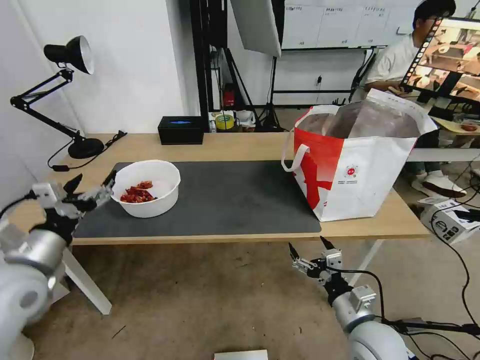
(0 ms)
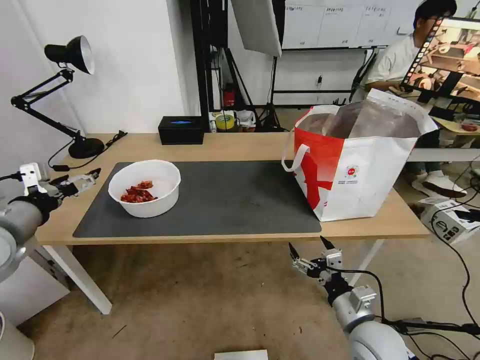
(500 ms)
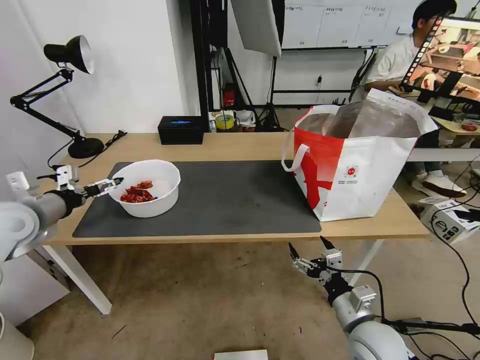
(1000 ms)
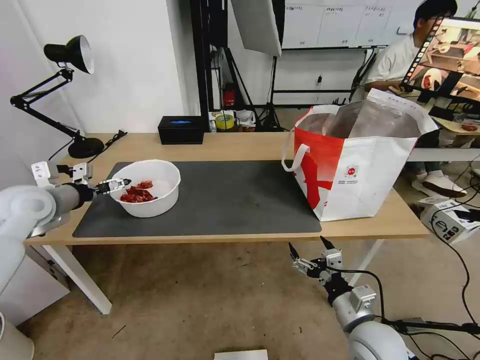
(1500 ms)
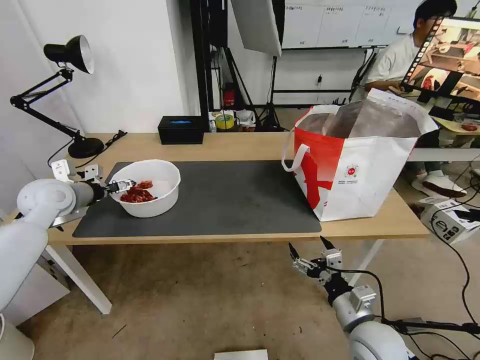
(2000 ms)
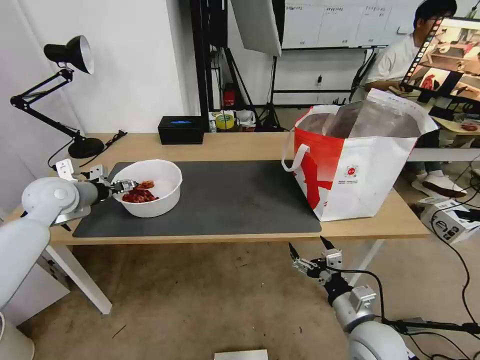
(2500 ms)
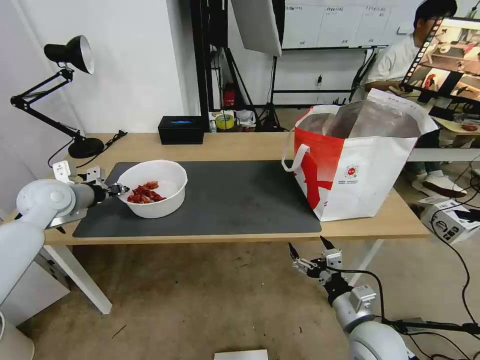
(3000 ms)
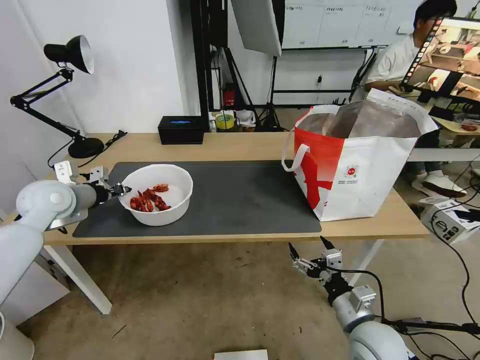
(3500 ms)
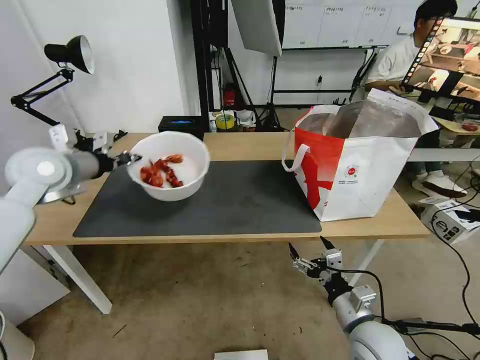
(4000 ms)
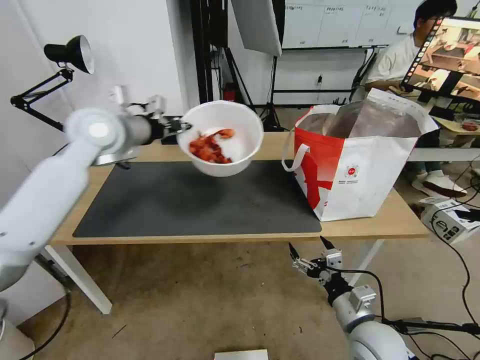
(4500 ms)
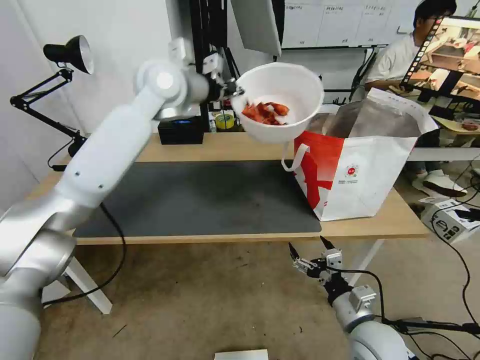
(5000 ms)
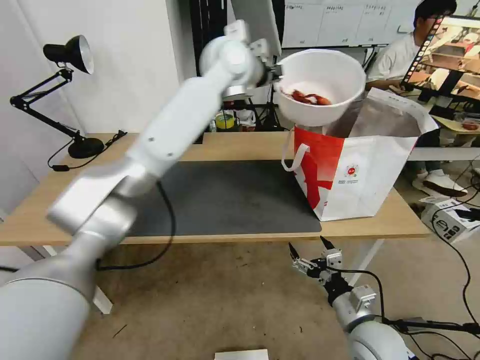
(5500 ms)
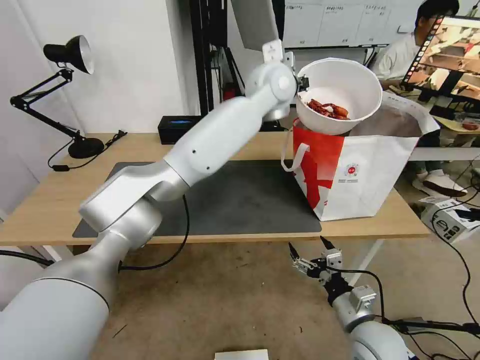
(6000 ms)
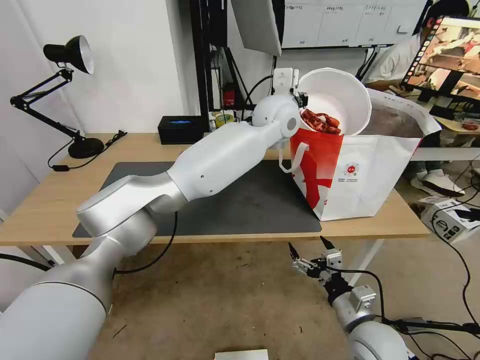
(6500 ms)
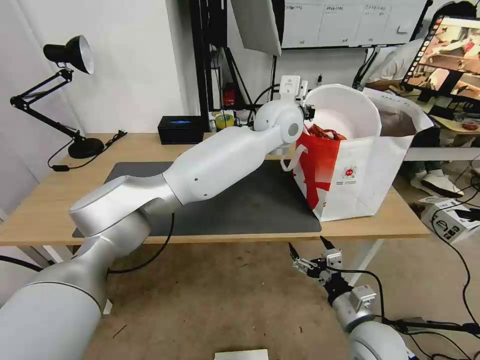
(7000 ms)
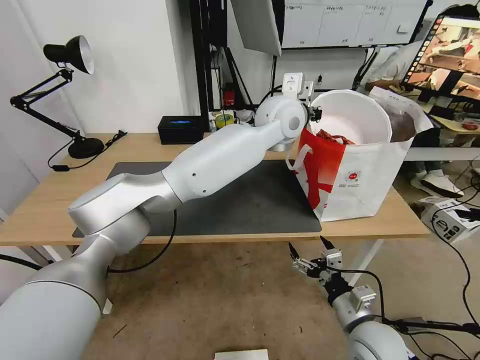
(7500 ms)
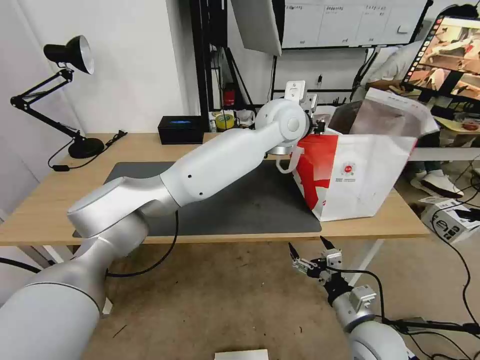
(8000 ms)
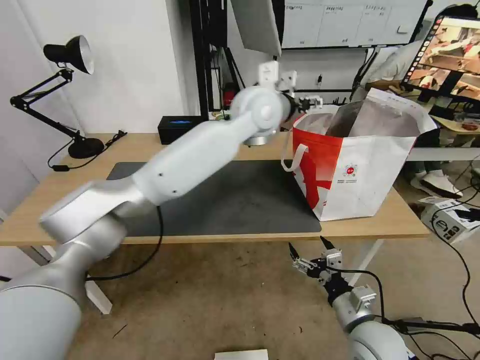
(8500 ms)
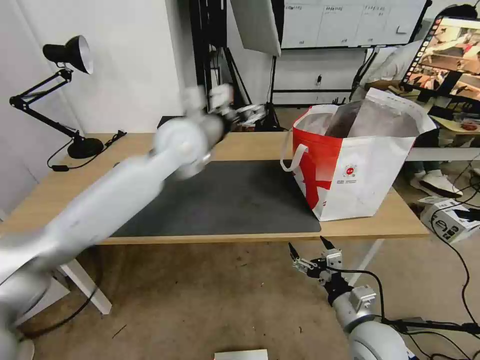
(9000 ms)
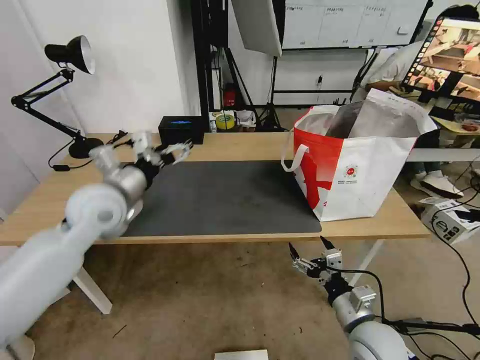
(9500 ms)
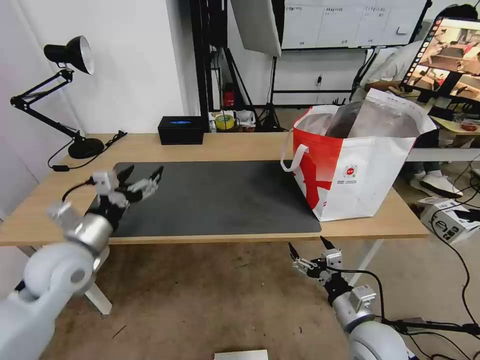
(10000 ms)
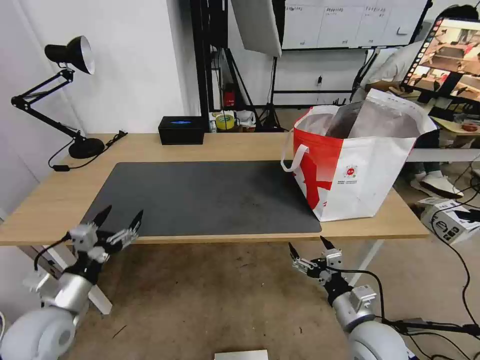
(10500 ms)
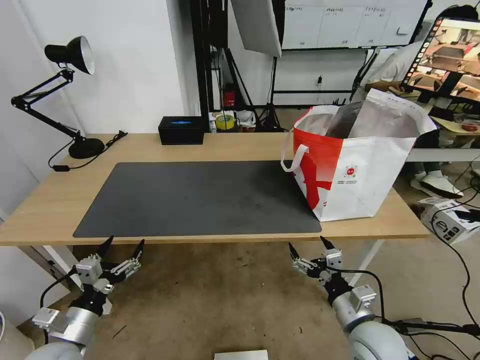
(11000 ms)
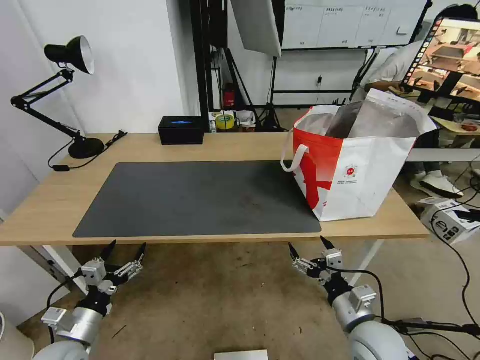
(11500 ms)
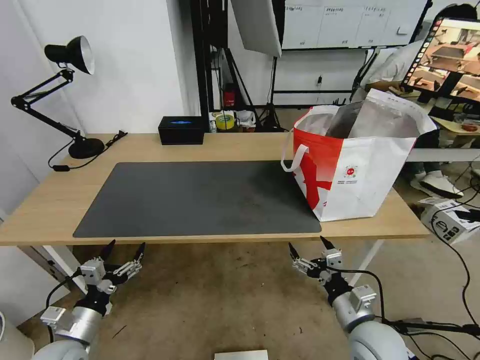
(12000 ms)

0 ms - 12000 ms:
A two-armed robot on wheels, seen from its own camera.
Task of the whole recording: Pick up the trash from the table and place it into the takeout bag.
0 ms - 2000 ms: The left gripper moves forward, about 20 cm.
2000 ms - 4000 ms: The left gripper is displaced upward by approximately 10 cm, and closes.
4000 ms - 6000 ms: The left gripper goes about 40 cm to the right.
6000 ms - 8000 ms: The left gripper changes place by about 5 cm, and opens.
8000 ms - 10000 ms: The left gripper travels to the left, backward and downward by about 50 cm, and opens.
10000 ms - 12000 ms: The left gripper moves downward and backward, approximately 20 cm.
